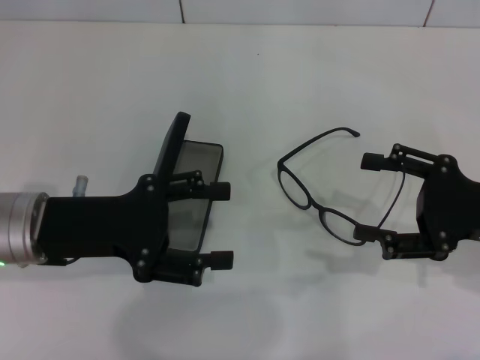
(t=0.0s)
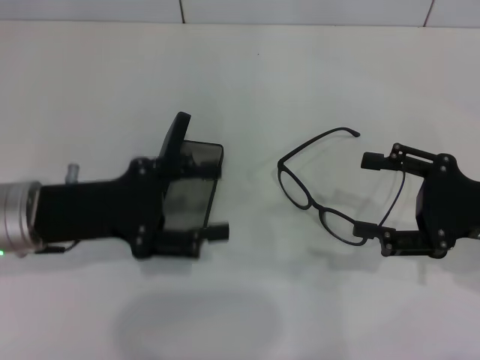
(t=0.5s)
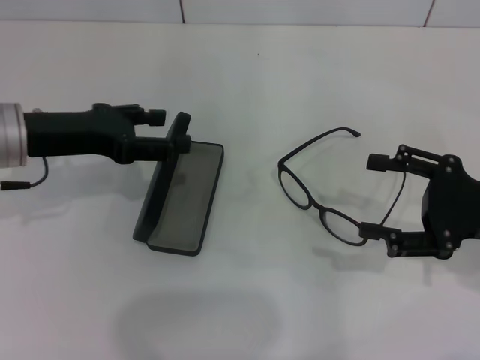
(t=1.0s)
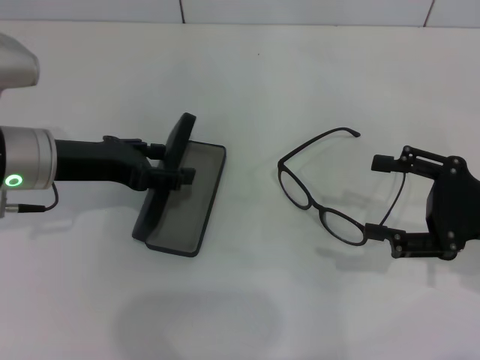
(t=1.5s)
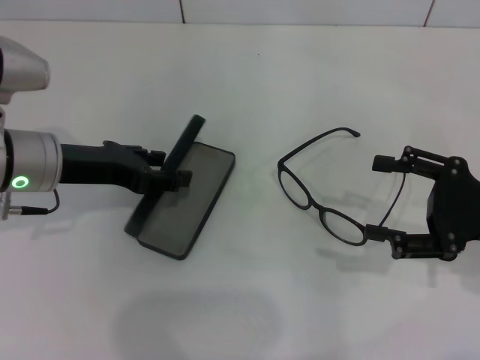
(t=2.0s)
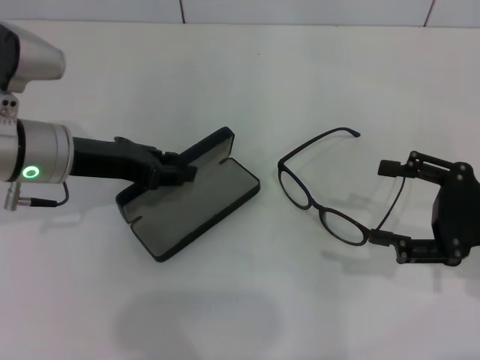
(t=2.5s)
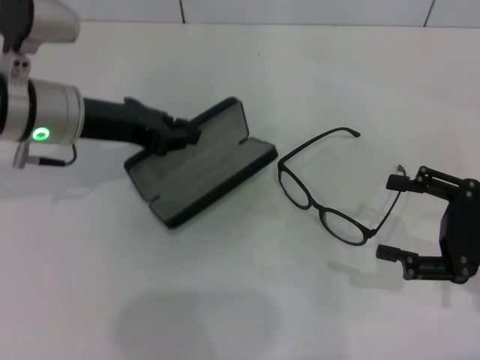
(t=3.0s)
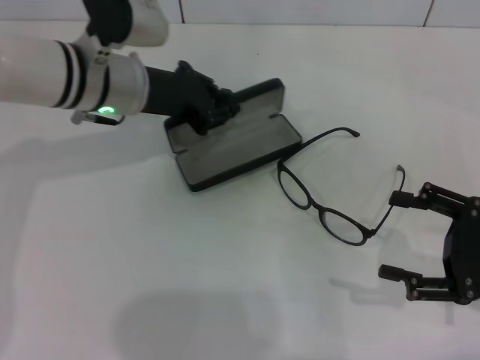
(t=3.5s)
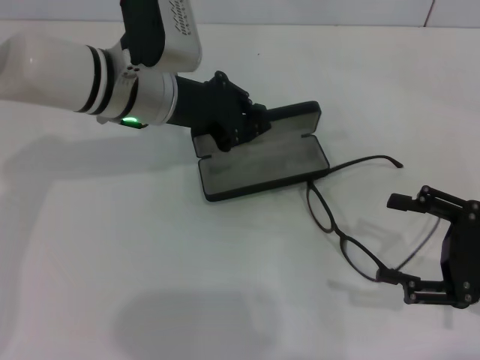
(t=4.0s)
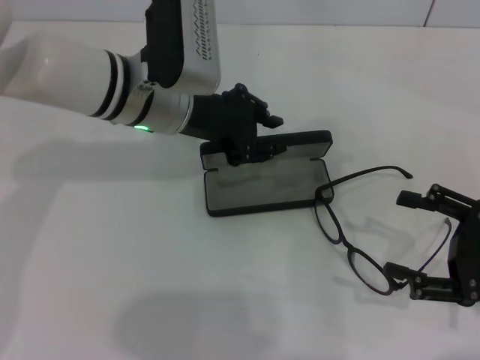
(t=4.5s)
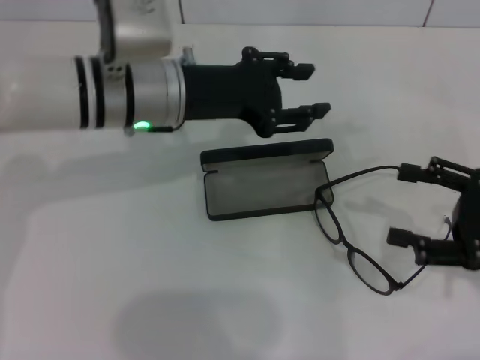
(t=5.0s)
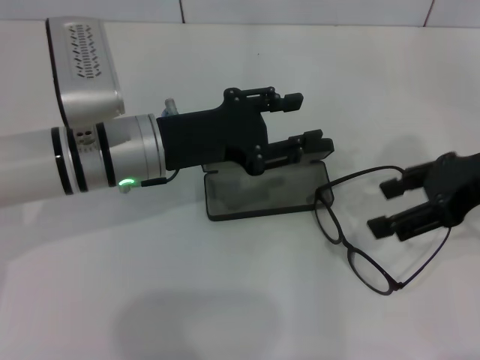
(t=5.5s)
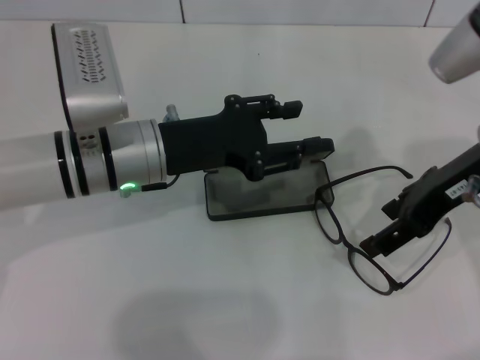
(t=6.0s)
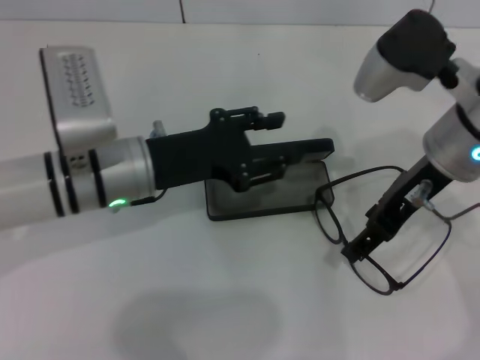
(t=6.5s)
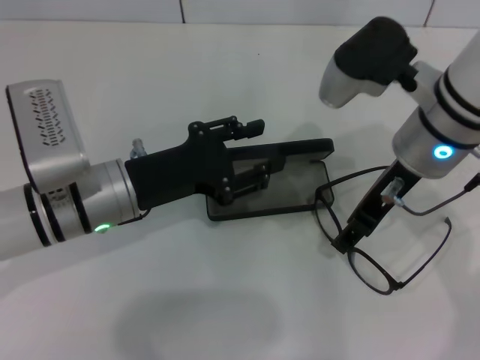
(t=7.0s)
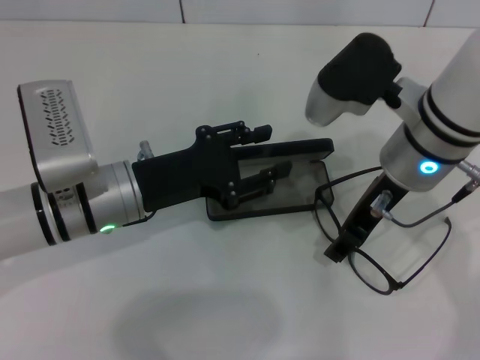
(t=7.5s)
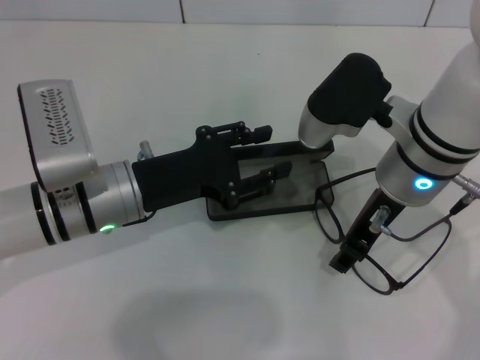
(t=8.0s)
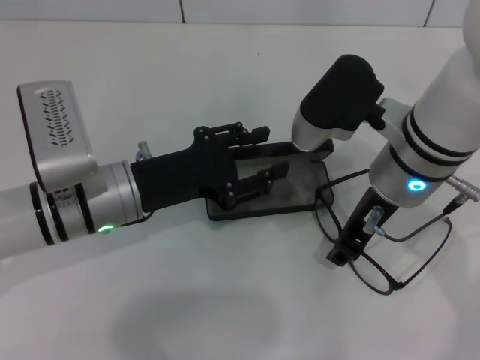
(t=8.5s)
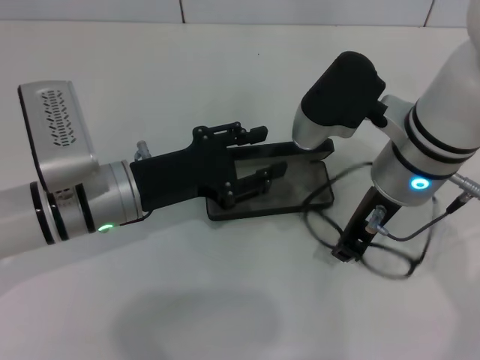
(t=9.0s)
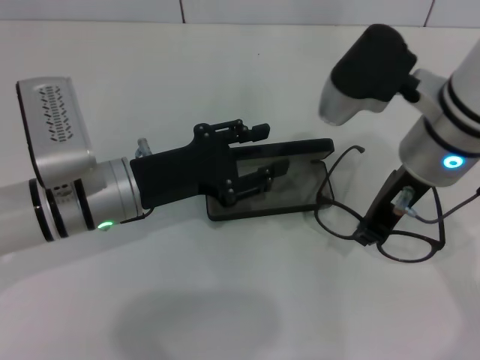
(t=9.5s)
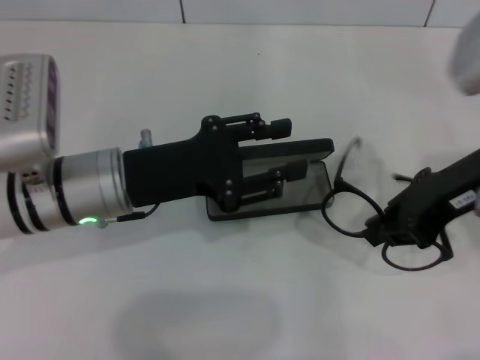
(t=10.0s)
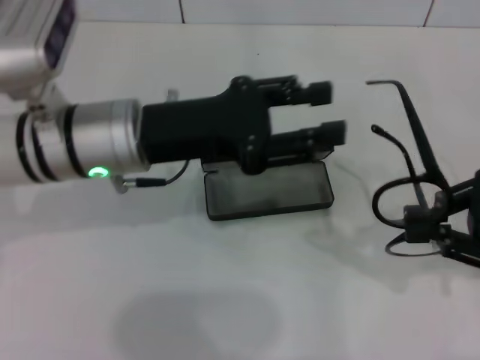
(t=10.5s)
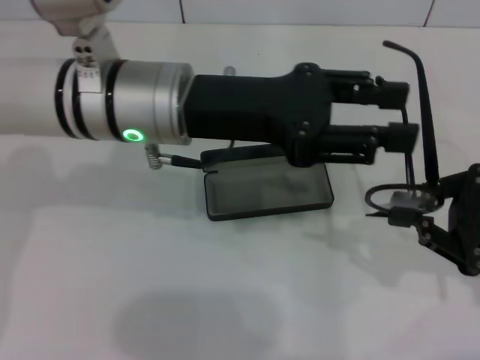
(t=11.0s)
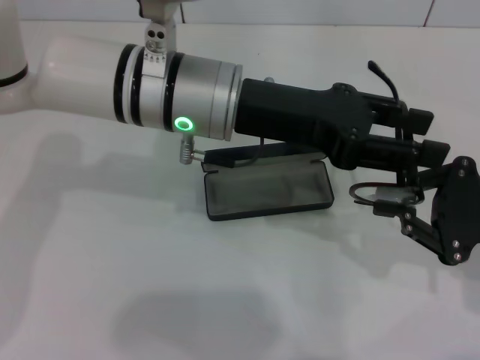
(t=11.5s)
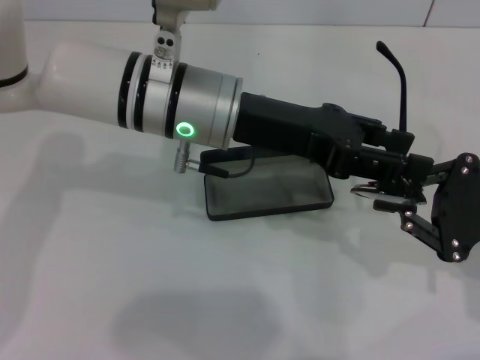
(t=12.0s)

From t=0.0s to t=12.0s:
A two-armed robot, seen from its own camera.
Step, from t=0.0s to t=2.0s: Grab the glasses case with your left hand.
Step, from t=2.5s to t=4.0s: Place the glasses case in the center of the table with your left hand.
Step, from t=5.0s to t=8.5s: Grab the eyeglass frame with your right hand.
From t=0.0s to t=2.0s: The left gripper travels forward by roughly 5 cm.
From t=2.0s to t=4.0s: The left gripper heads to the right and forward, covering some 10 cm, and closes.
From t=4.0s to t=6.0s: The right gripper heads upward, forward and to the left, covering about 20 cm, while the left gripper travels backward by approximately 5 cm, and opens up.
From t=6.0s to t=8.0s: The right gripper heads to the left, covering approximately 10 cm.
From t=8.0s to t=10.0s: The right gripper shifts some 10 cm to the right, and closes its fingers.
From t=10.0s to t=12.0s: The right gripper goes some 15 cm downward and to the right. Meanwhile the left gripper moves to the right and upward, about 10 cm.

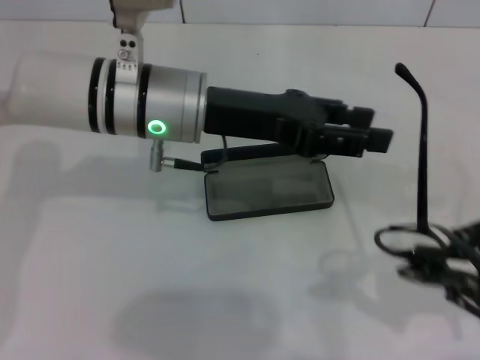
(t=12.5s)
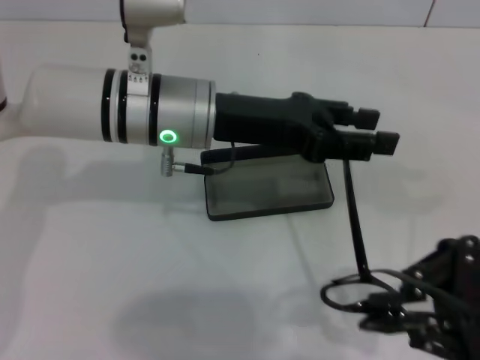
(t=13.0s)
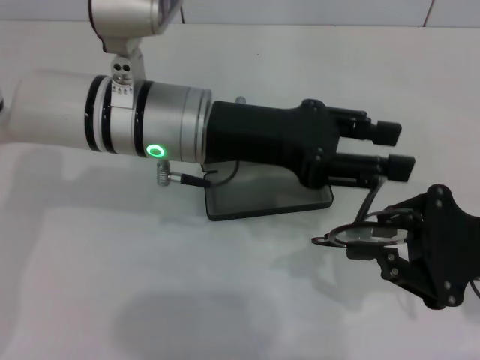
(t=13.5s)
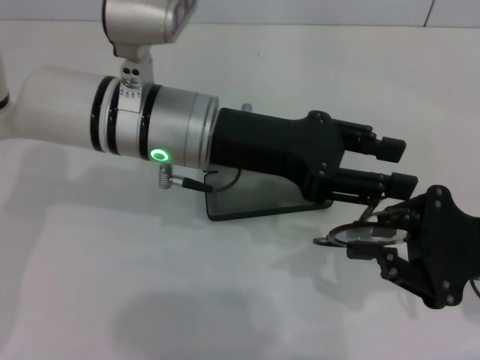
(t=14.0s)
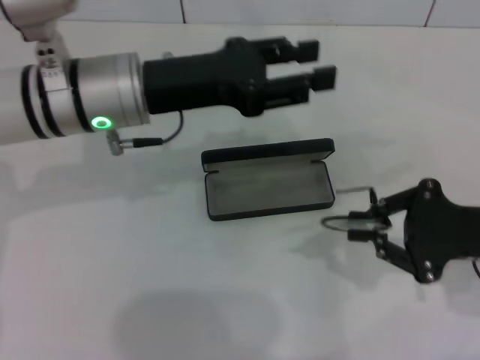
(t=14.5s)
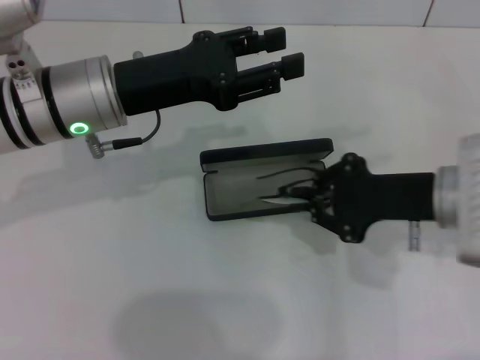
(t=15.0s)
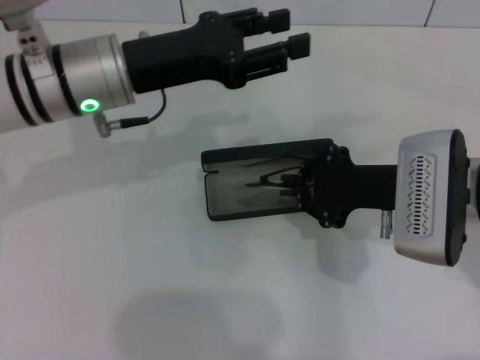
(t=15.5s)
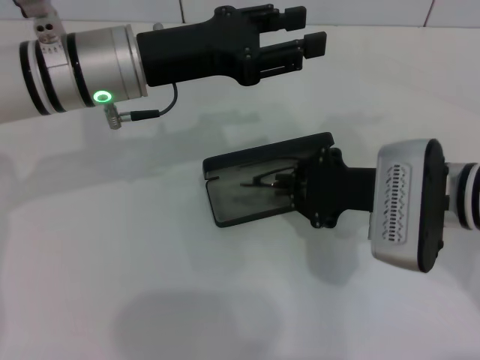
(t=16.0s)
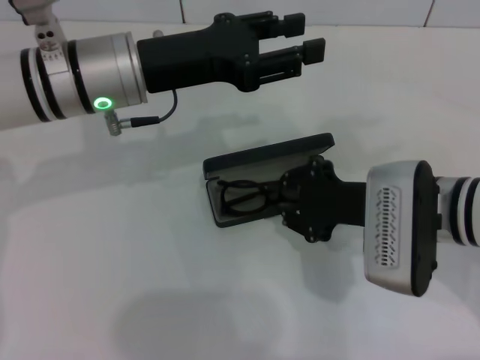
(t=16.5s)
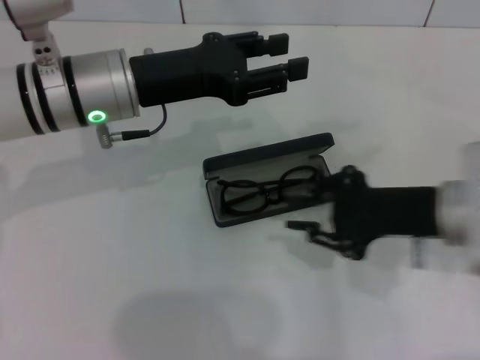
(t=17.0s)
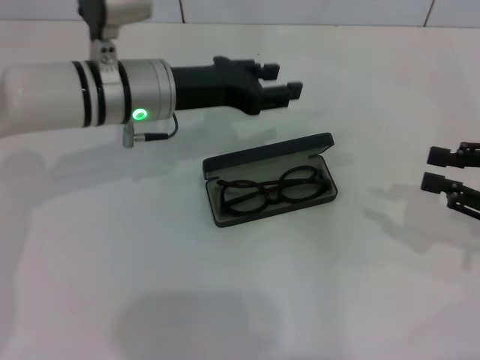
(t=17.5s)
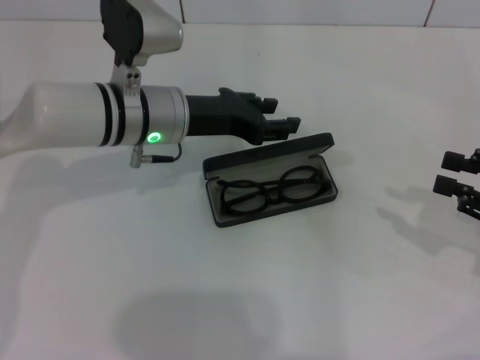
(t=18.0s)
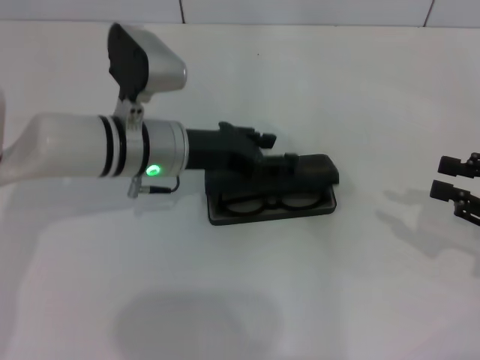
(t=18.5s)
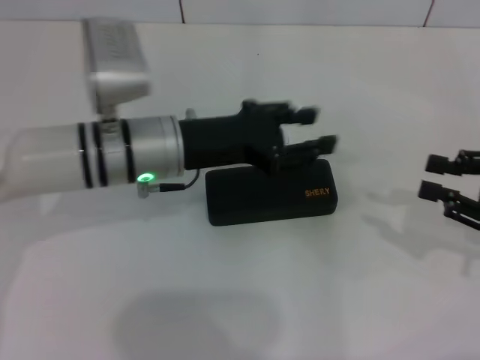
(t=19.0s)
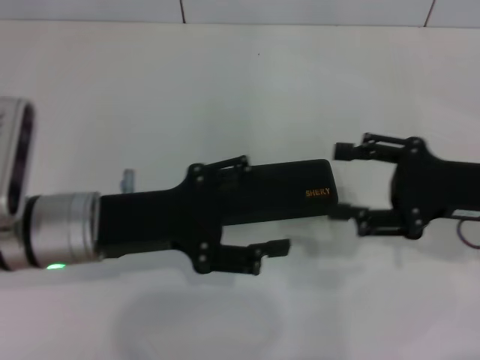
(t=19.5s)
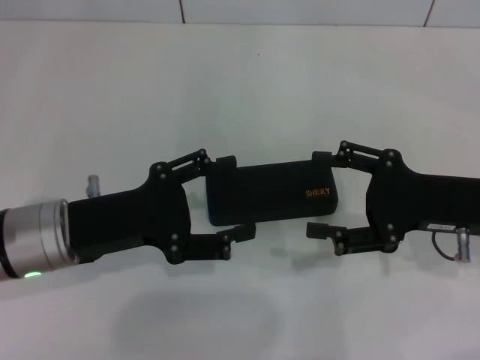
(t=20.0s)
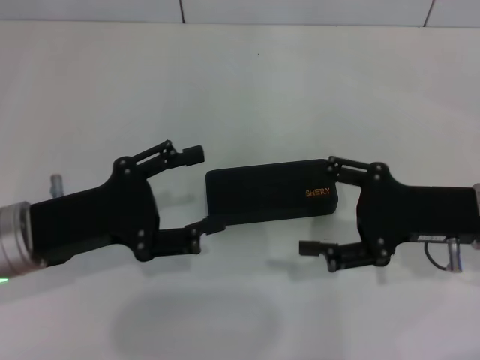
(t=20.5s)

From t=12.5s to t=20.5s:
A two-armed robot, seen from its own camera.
Step, from t=14.5s to t=16.5s: Put the glasses into the case with your right hand.
Step, from t=17.0s to t=18.5s: Close the glasses case with your left hand.
From t=12.5s to t=14.5s: The right gripper ends up approximately 5 cm from where it was.
From t=14.5s to t=16.5s: The right gripper heads to the left, covering approximately 10 cm.
From t=16.5s to t=18.5s: The left gripper travels downward by roughly 10 cm, while the right gripper goes about 20 cm to the right.
From t=18.5s to t=20.5s: The right gripper moves to the left, approximately 10 cm, and opens. Meanwhile the left gripper heads to the left and backward, covering some 15 cm, and opens.

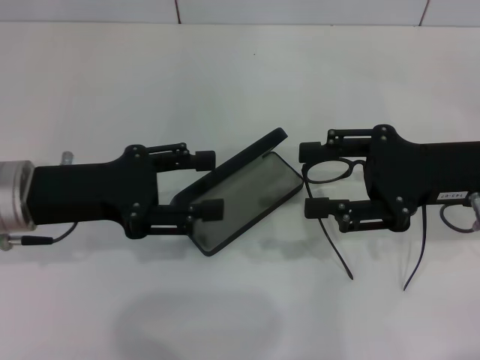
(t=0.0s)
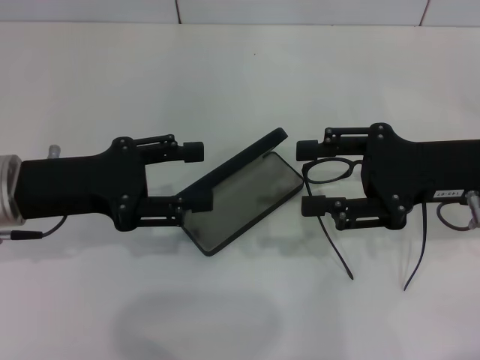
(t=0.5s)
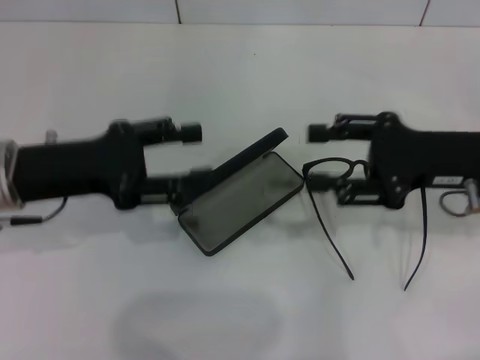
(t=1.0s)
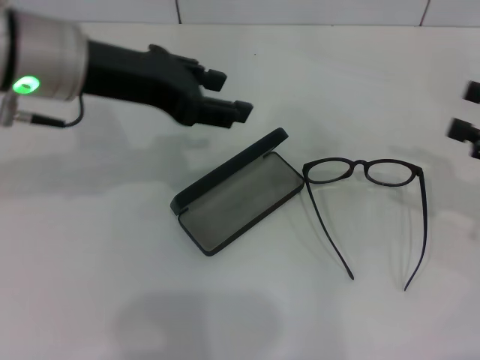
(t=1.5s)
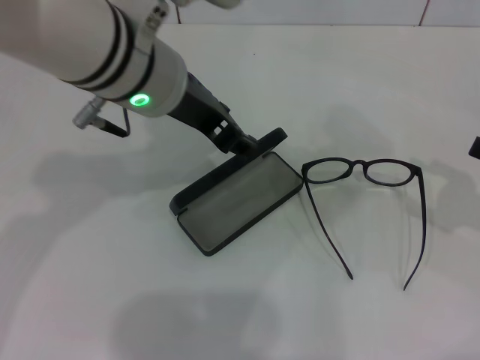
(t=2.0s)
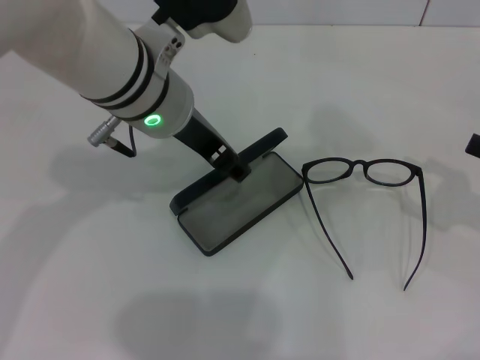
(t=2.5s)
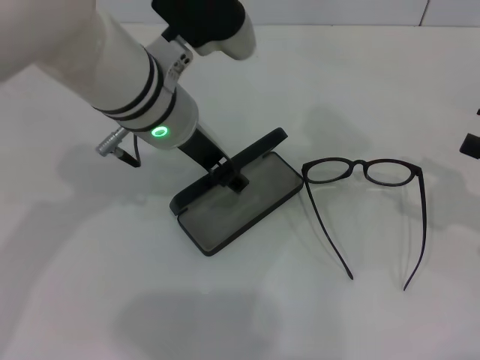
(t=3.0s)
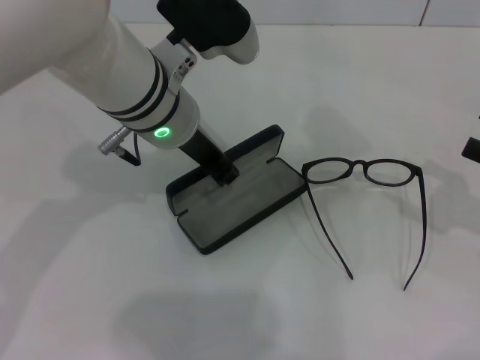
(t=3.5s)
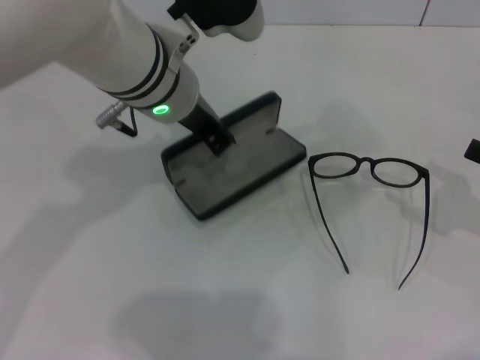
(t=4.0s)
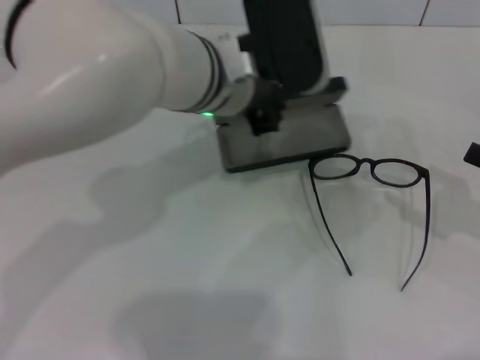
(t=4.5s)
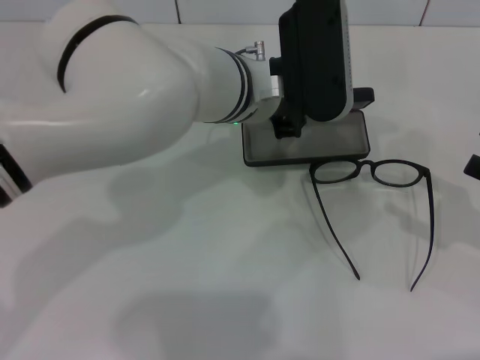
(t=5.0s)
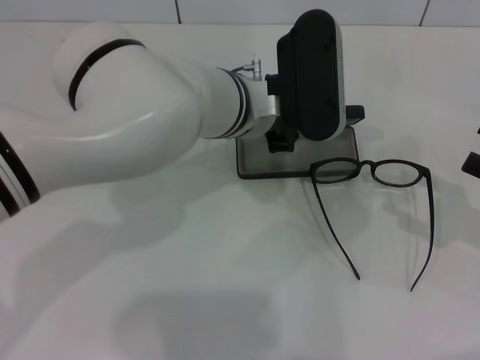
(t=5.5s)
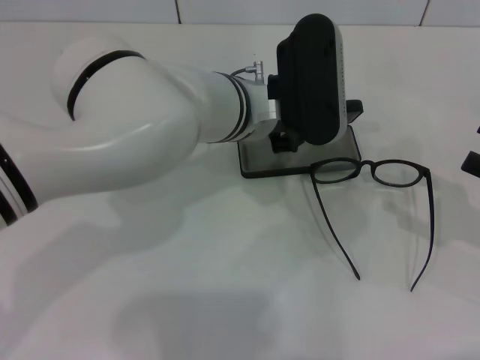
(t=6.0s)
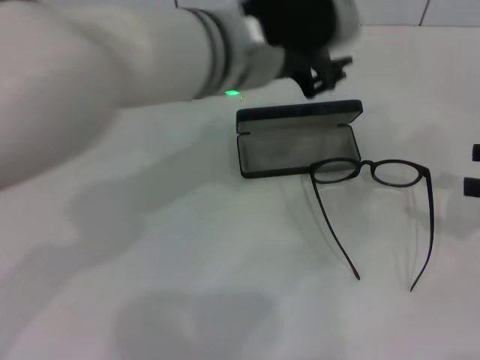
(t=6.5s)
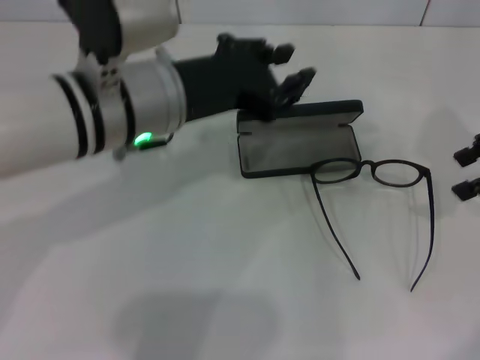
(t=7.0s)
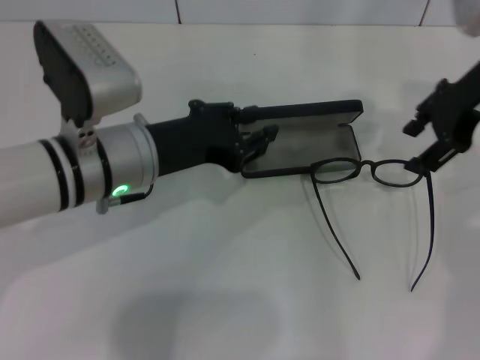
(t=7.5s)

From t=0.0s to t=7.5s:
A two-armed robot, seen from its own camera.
Step, from t=0.0s to t=3.0s: Grab the glasses case with your left hand.
Step, from t=3.5s to t=6.0s: Place the glasses case in the center of the table with your left hand.
From t=0.0s to t=2.0s: The right gripper goes approximately 15 cm to the right, while the left gripper is displaced to the right and upward by some 20 cm.
From t=2.0s to t=4.0s: The left gripper closes up.
From t=4.0s to t=5.5s: The left gripper is displaced to the right and downward by about 10 cm.
From t=5.5s to t=7.5s: The left gripper shifts about 15 cm to the left and backward; the right gripper goes roughly 25 cm forward, to the left and upward.
